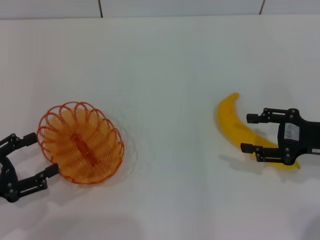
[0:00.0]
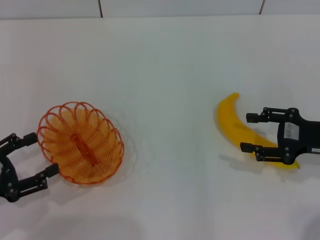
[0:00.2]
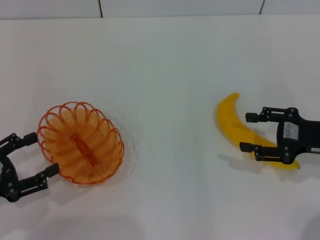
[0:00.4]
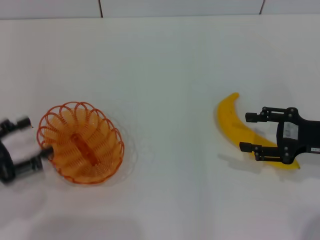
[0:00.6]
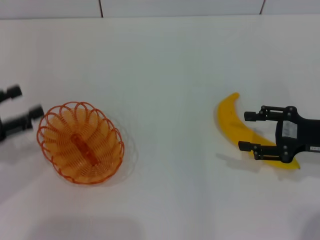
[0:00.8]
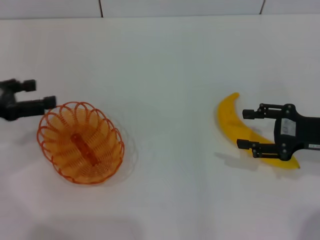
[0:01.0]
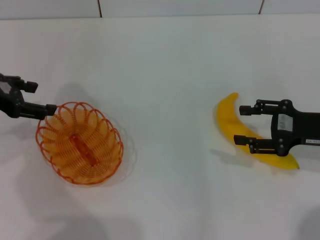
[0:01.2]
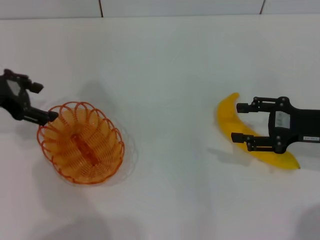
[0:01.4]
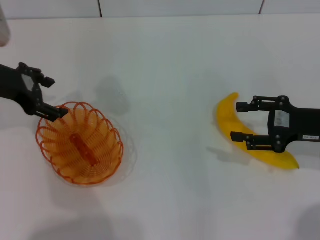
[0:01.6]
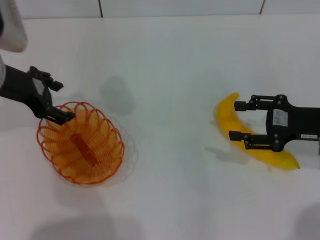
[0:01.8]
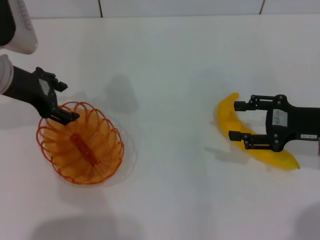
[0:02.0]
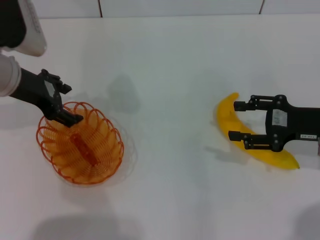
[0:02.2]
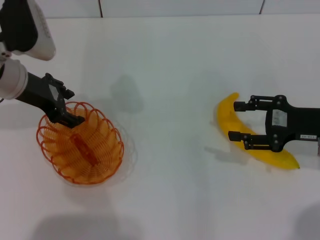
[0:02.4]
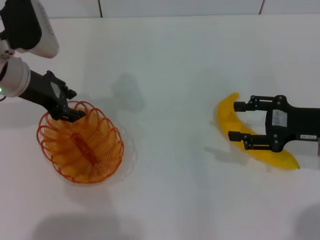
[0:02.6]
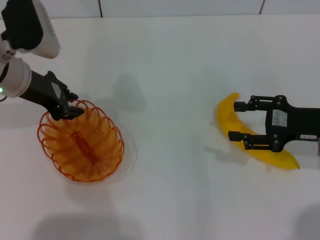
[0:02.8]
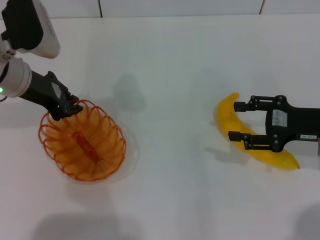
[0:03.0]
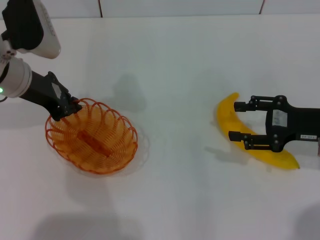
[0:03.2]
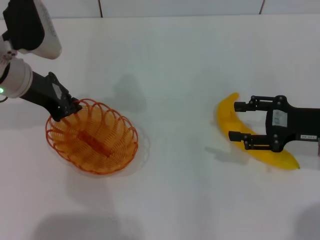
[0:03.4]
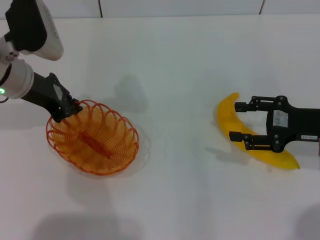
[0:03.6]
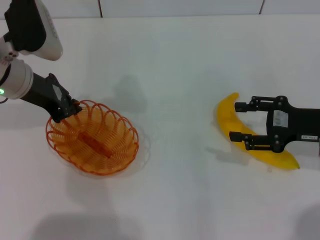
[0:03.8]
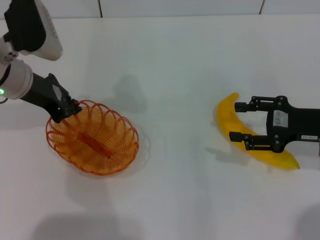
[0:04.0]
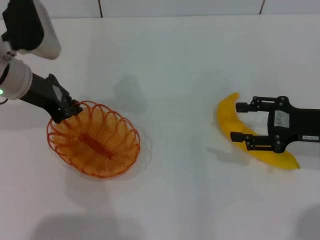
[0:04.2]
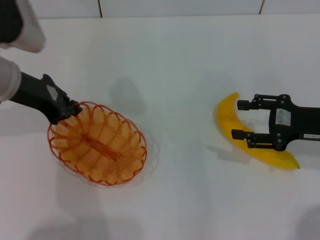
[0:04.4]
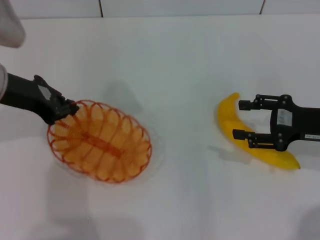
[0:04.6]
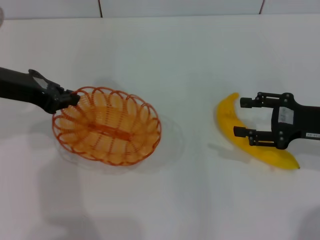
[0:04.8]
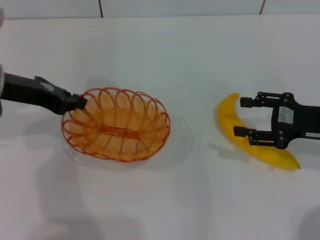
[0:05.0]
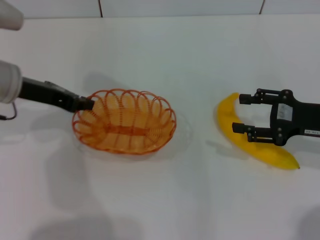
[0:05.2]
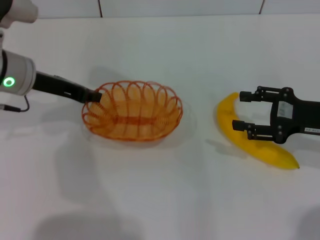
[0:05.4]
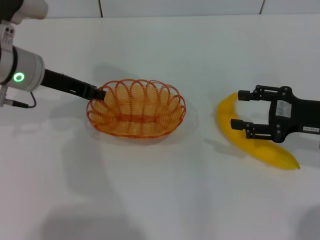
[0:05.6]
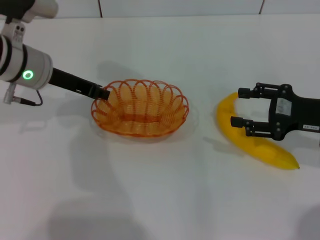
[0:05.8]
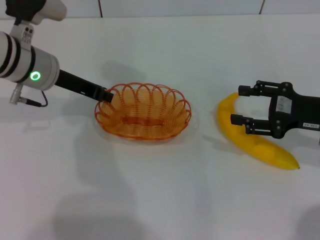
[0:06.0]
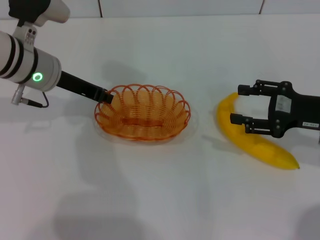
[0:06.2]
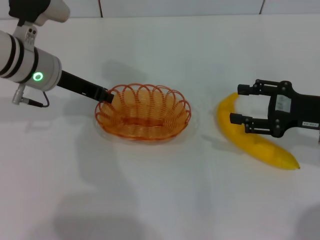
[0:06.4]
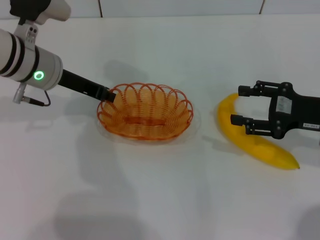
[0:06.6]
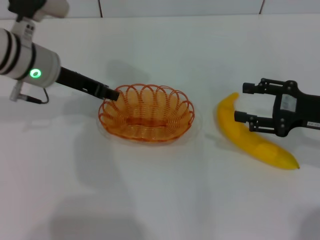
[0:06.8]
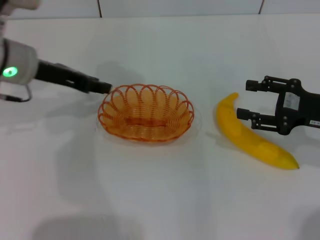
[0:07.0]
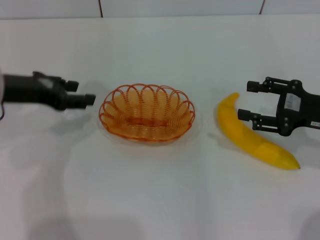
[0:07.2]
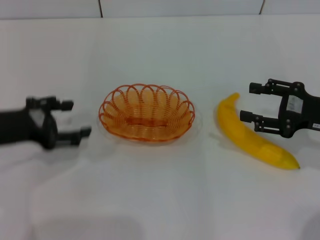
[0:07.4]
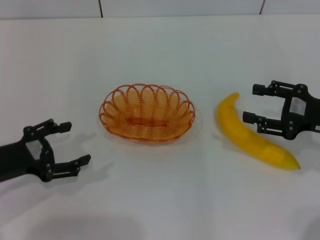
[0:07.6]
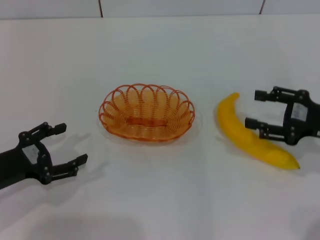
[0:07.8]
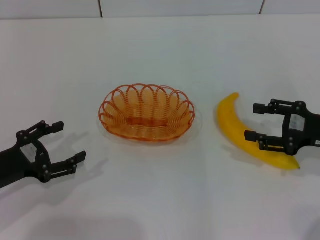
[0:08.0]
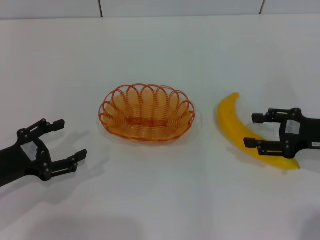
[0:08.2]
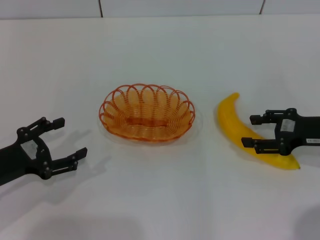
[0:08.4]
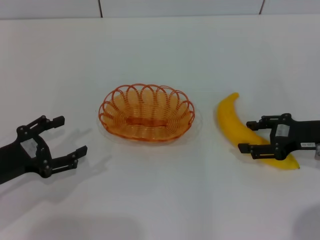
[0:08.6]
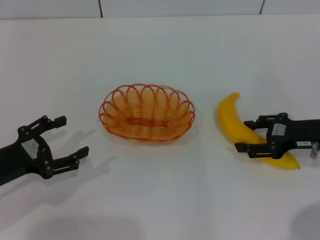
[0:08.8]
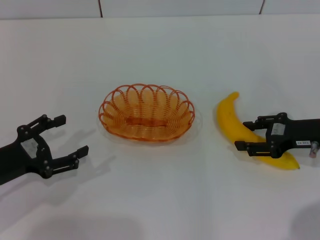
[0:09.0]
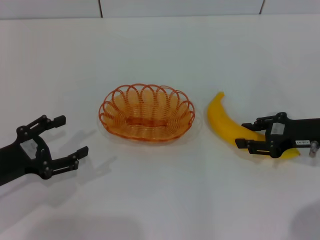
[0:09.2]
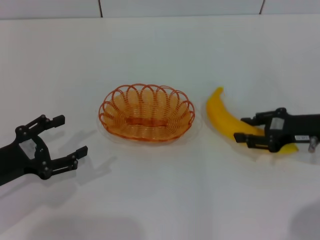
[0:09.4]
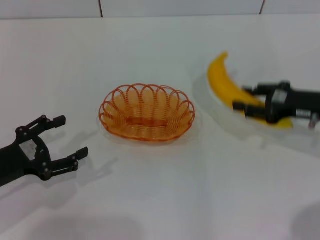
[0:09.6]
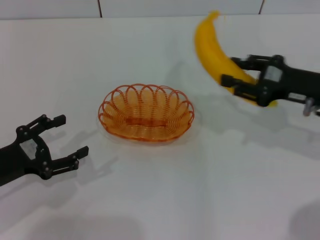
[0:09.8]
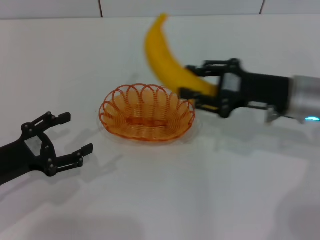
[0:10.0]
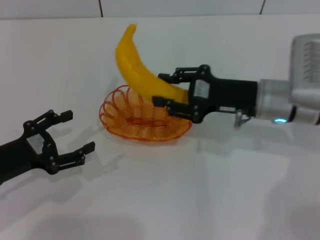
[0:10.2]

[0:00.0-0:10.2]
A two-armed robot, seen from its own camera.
Step, 0:00.0 to 0:04.4: Pick up the basket with the left gripper.
Step, 0:04.8 to 0:07.0: Place the basket in the center of view with the left gripper.
Step, 0:07.2 to 0:09.4: Pick up the banana with the right gripper.
0:00.0 to 0:01.4: The left gripper goes about 20 cm forward and upward.
0:01.4 to 0:03.0: The left gripper travels to the right by about 5 cm, and closes up.
0:03.0 to 0:04.4: The grippers stay close to where they were, moving slightly.
0:04.4 to 0:05.8: The left gripper ends up roughly 5 cm from where it was.
0:05.8 to 0:07.2: The left gripper travels backward and to the left by some 10 cm, and opens up.
0:07.2 to 0:08.8: The left gripper shifts about 15 cm downward and backward, and opens up.
0:08.8 to 0:10.2: The right gripper shifts about 10 cm to the left.

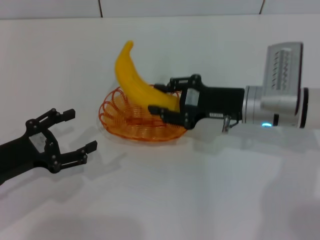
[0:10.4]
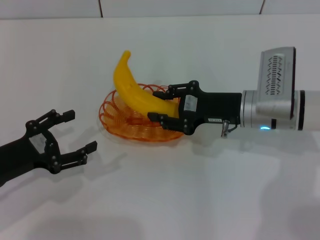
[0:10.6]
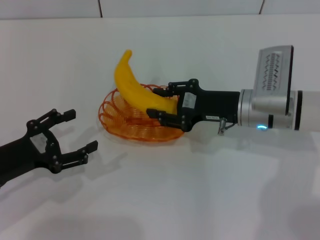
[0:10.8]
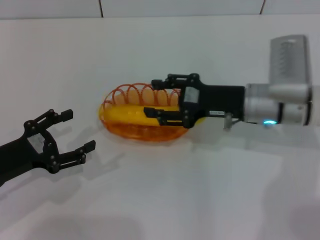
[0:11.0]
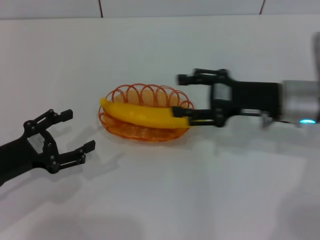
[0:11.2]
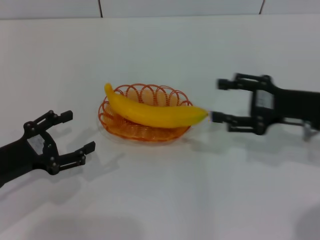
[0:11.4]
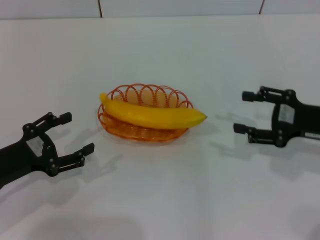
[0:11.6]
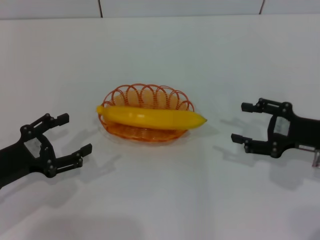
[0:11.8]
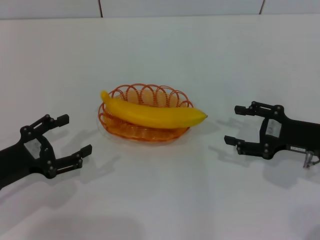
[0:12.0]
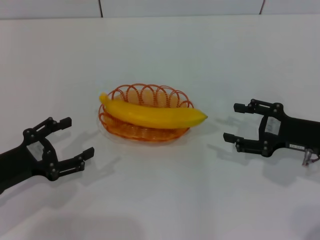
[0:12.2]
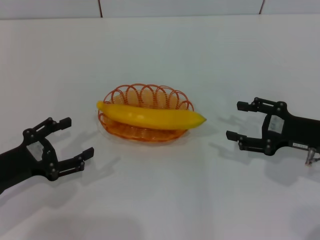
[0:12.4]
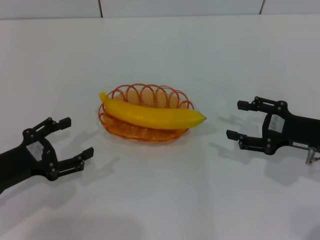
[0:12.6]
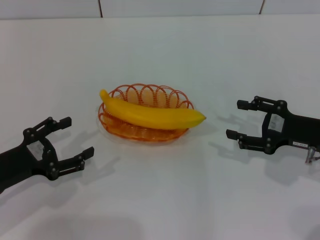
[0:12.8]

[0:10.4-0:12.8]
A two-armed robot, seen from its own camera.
0:10.4 to 0:11.6: The right gripper heads to the right and backward, covering some 15 cm, and opens up.
0:11.6 to 0:12.8: The grippers move only a little.
